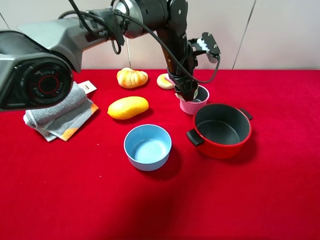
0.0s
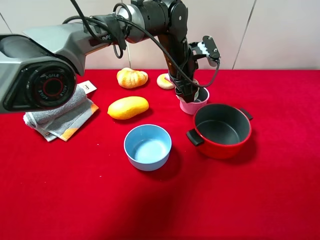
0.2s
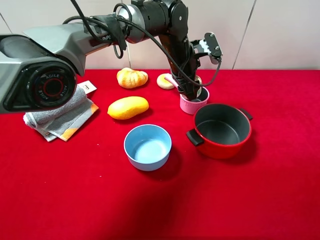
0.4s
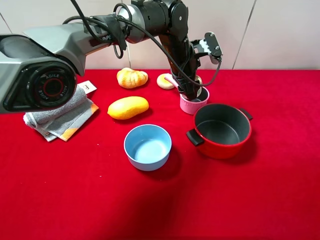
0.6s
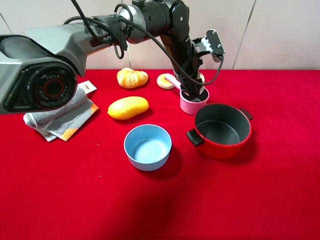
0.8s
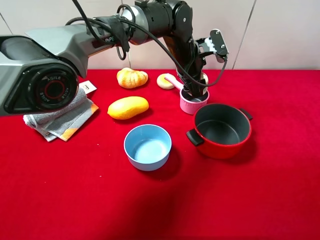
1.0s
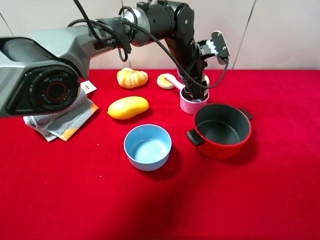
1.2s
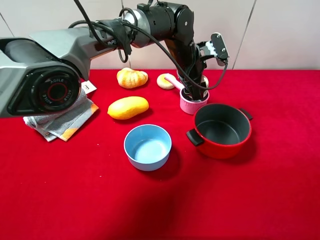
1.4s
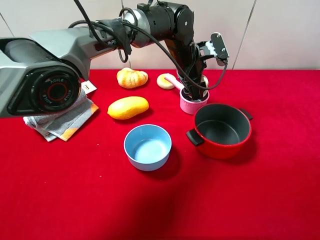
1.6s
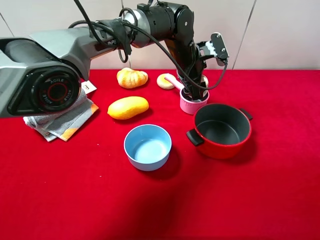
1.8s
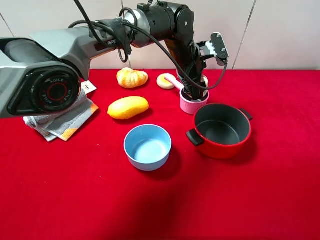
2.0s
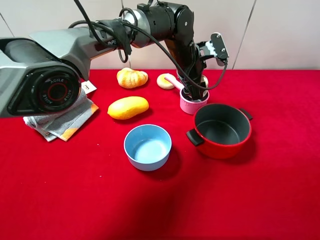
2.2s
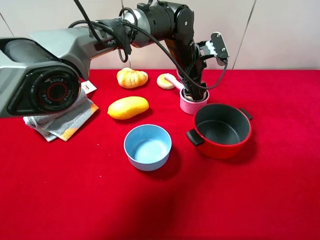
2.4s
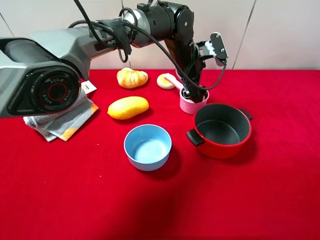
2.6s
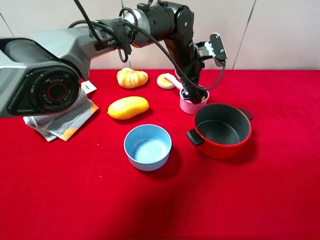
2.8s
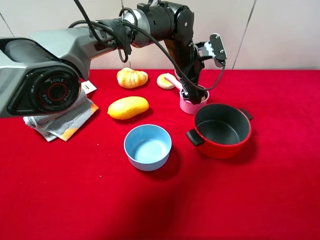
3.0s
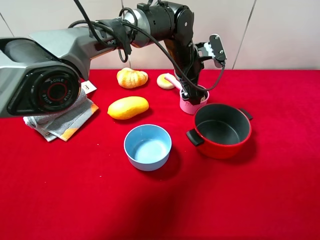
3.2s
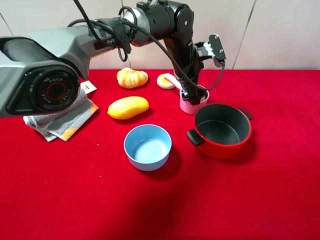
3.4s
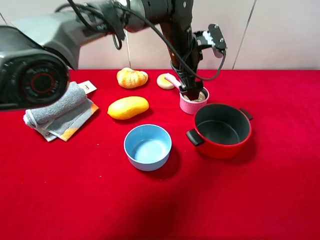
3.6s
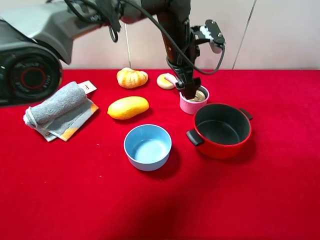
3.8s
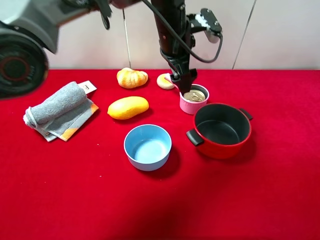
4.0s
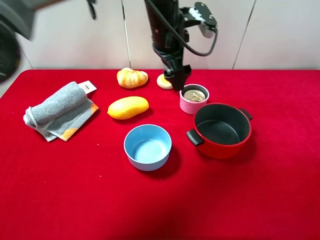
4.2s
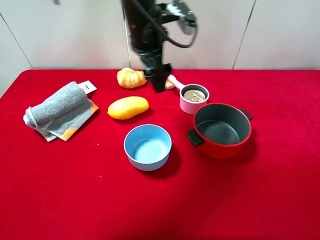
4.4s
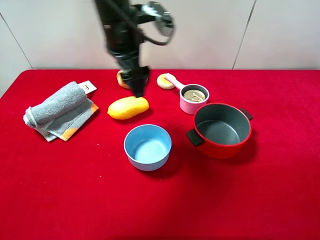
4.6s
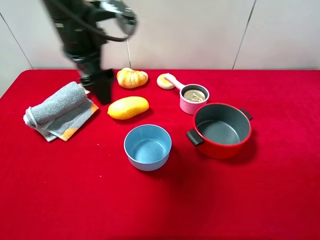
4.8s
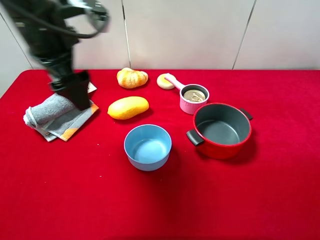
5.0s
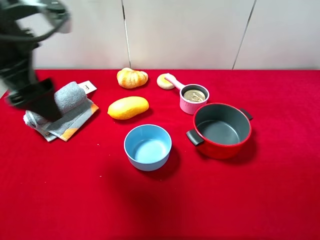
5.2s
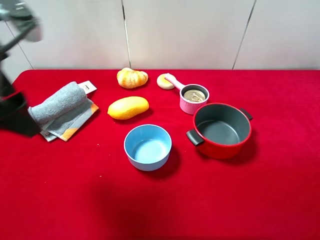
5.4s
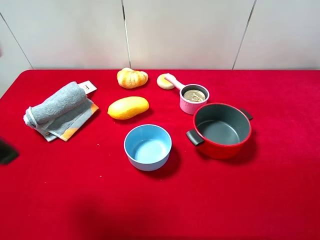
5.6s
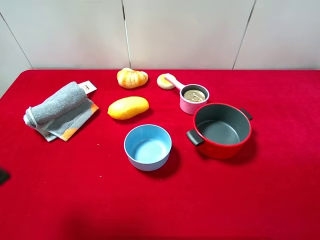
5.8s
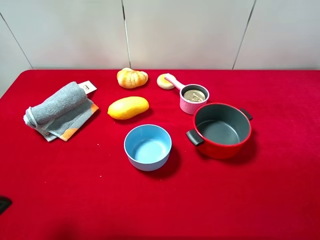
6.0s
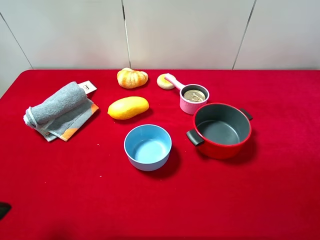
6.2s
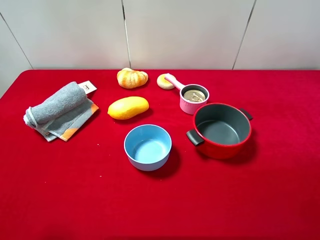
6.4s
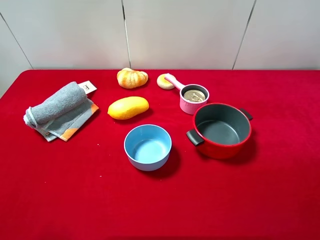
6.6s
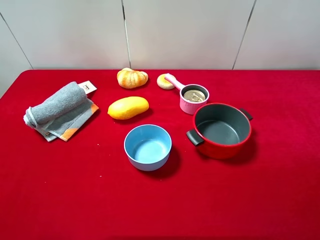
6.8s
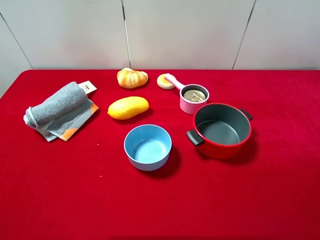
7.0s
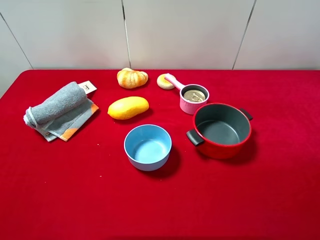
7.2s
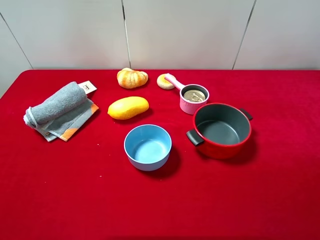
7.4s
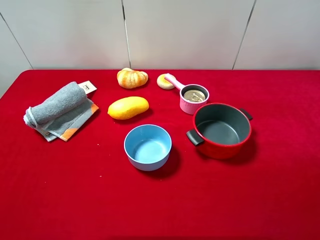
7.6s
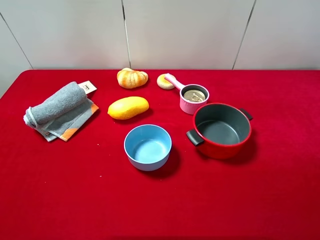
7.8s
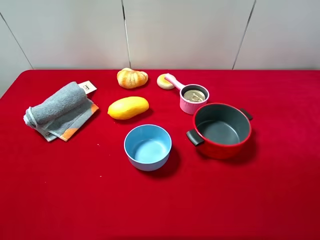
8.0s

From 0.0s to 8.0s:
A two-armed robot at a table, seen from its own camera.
Task of the whole recording: pick up an item with a gripper and place it in a random container on the desktop.
From 0.0s to 1.6s: The grippers make only small movements.
From 1.6s to 3.2s: The left gripper opens.
From 3.2s to 4.8s: The left gripper travels to the left, upward and backward by approximately 25 cm.
From 4.8s to 6.4s: The left gripper moves backward and to the left, approximately 30 cm.

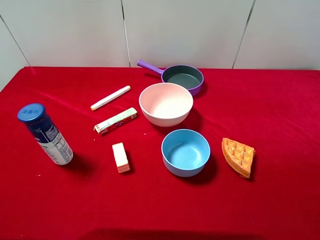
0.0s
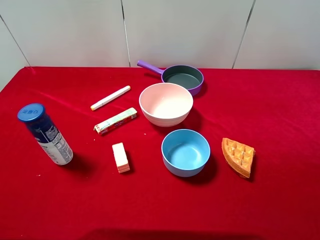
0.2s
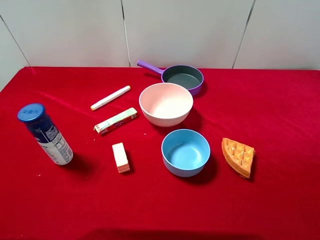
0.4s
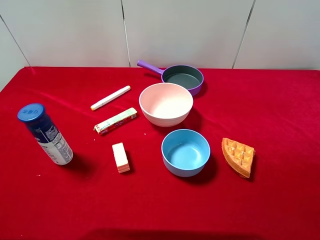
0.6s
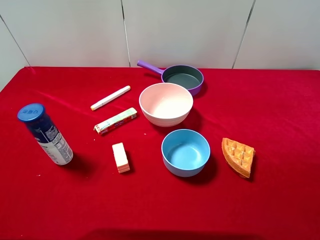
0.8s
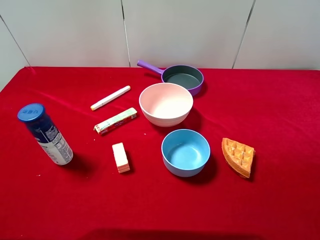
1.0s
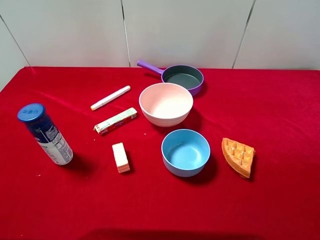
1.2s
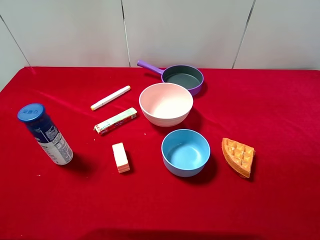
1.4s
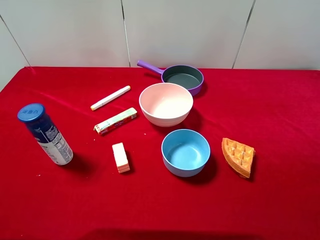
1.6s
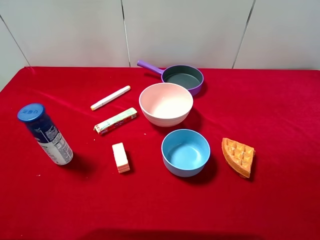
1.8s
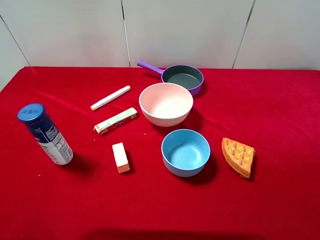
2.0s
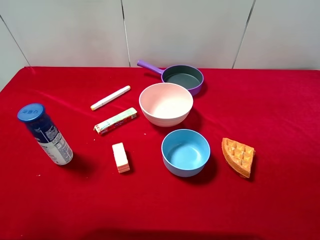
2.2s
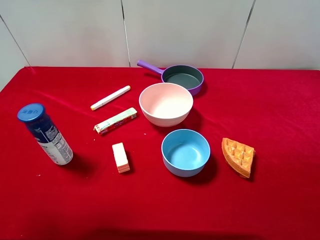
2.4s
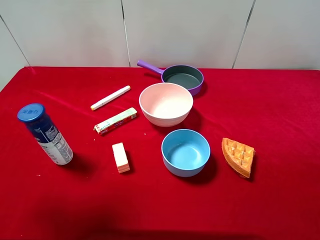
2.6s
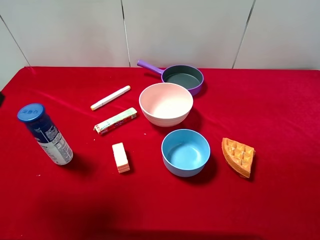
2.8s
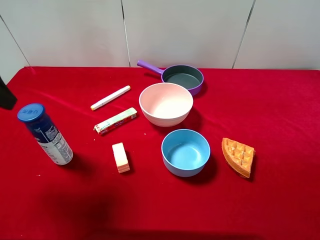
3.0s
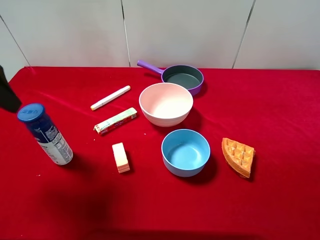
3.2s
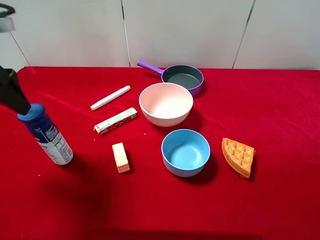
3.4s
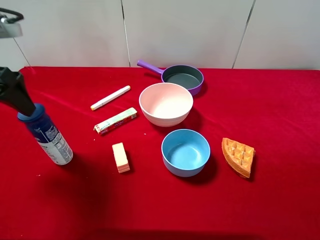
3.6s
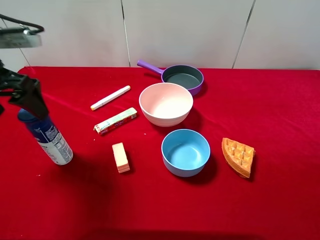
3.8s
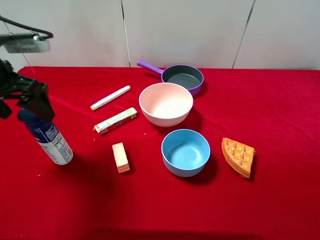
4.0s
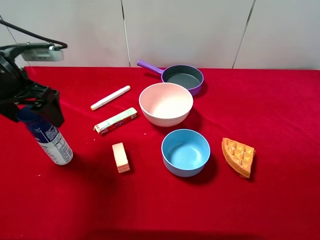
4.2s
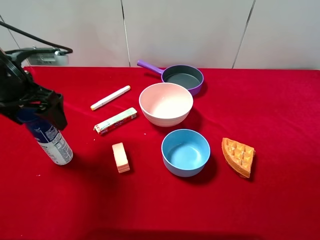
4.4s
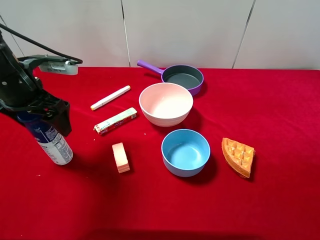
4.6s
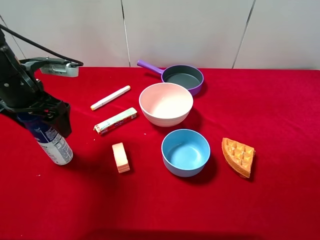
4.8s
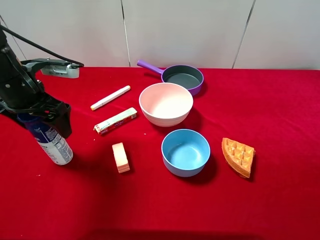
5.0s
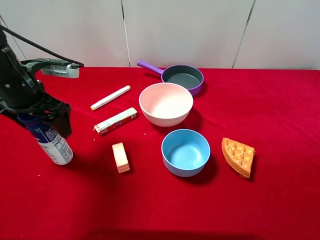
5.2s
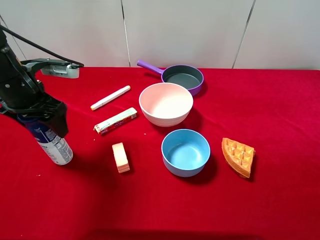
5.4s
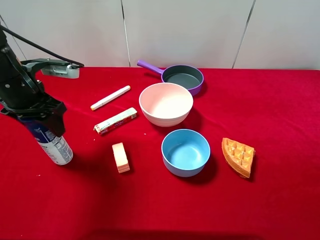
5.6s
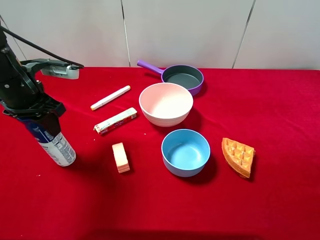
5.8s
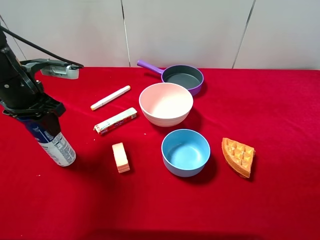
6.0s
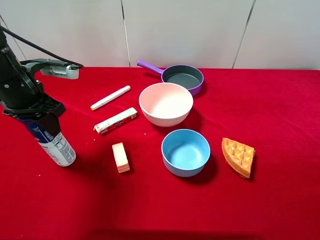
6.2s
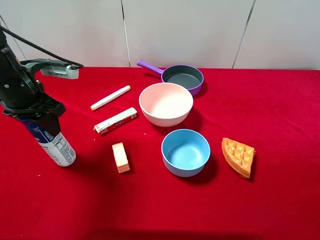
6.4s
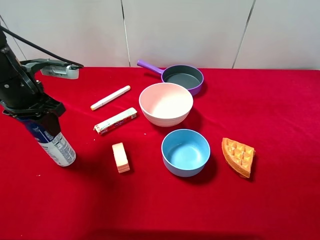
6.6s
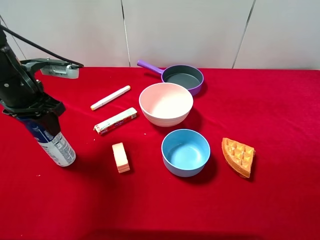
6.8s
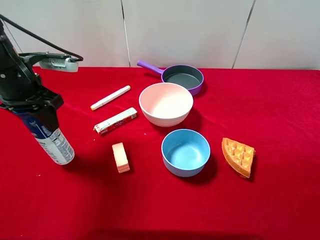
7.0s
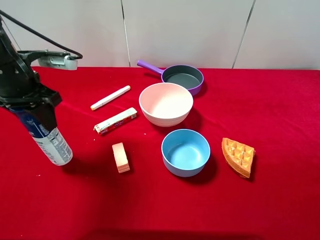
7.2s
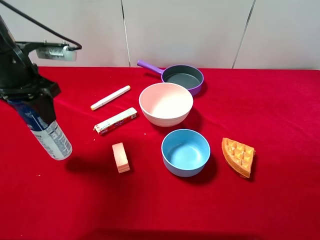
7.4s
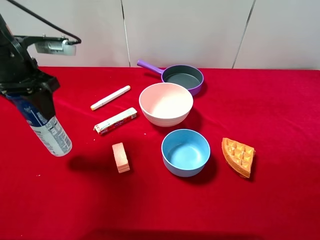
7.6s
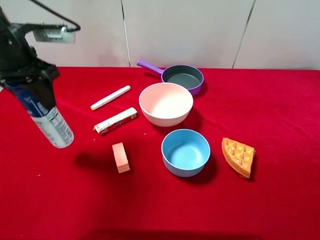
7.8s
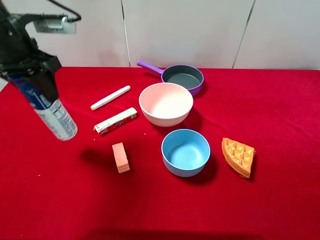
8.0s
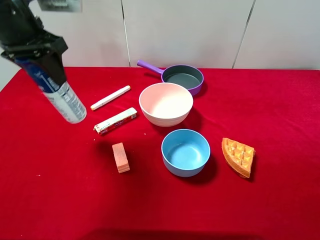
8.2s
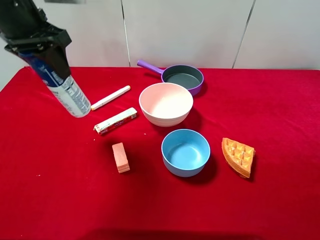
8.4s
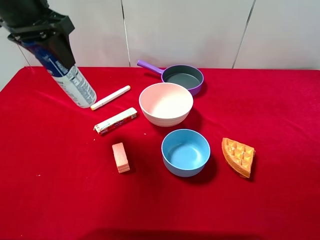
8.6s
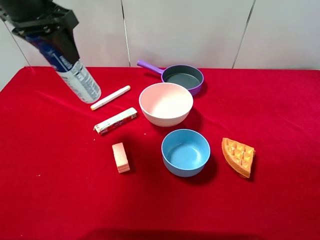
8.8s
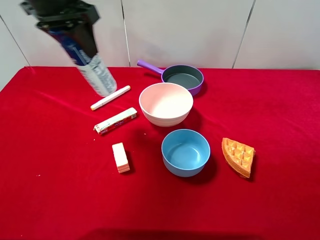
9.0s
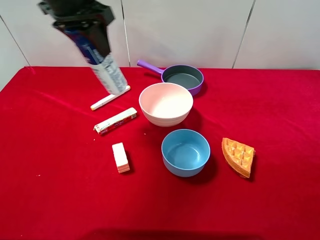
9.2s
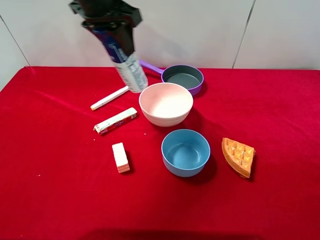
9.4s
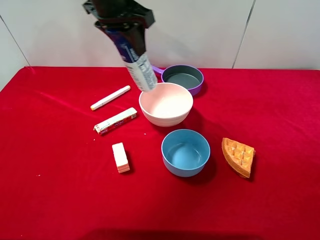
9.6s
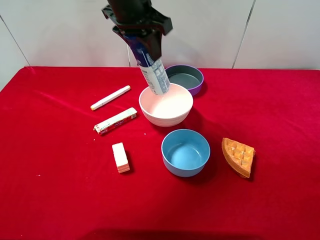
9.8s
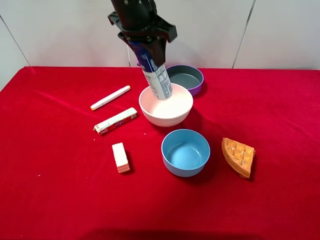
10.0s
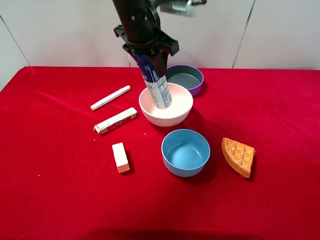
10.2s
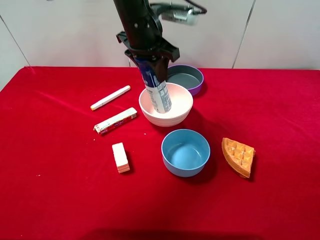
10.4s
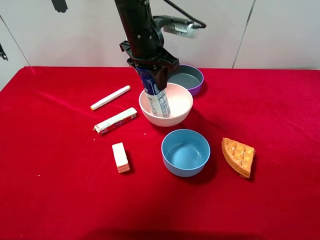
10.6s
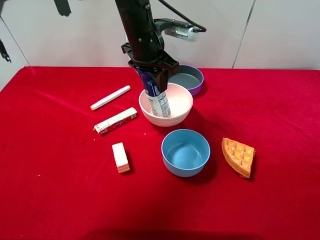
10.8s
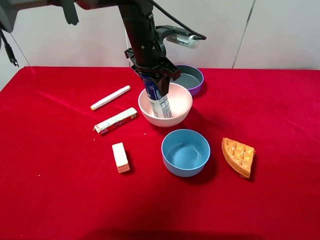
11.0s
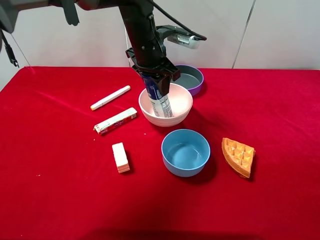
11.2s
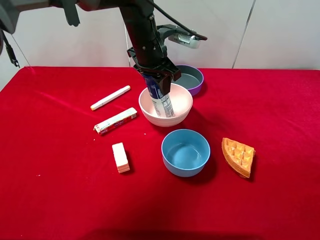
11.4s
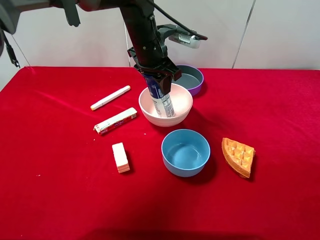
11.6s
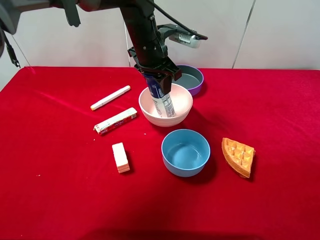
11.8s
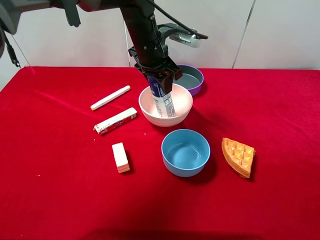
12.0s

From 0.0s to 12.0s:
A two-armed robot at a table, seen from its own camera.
Task of the whole recording: pick up an item with a gripper and place it in a random container on the desktop.
From 1.6s to 3.0s: The left gripper heads forward, covering about 15 cm.
From 3.0s to 4.4s: The left gripper is displaced downward and forward by some 10 cm.
From 4.4s to 6.0s: The left gripper closes.
From 6.0s to 7.6s: The left gripper ends up roughly 5 cm from where it was.
From 7.6s to 9.0s: The left gripper shifts some 10 cm upward and to the right.
From 9.0s to 10.4s: The left gripper goes approximately 15 cm to the right and downward.
From 10.4s to 12.0s: The left gripper moves approximately 5 cm.

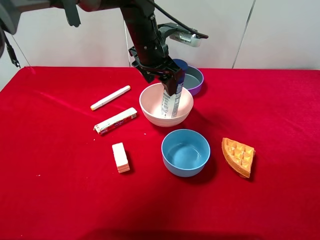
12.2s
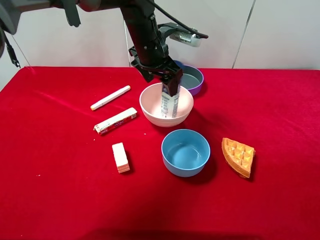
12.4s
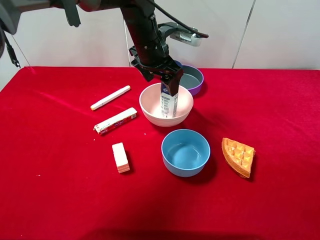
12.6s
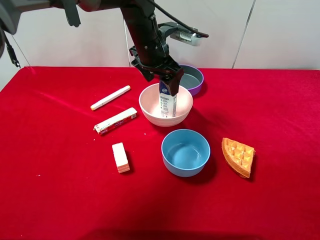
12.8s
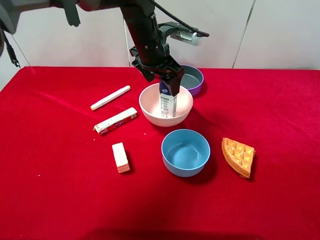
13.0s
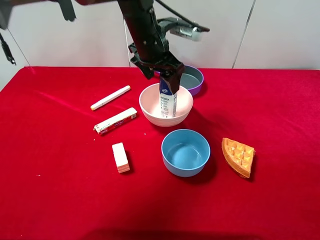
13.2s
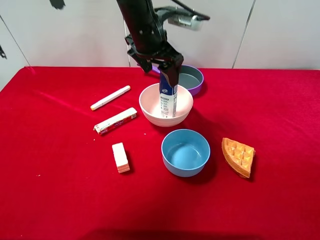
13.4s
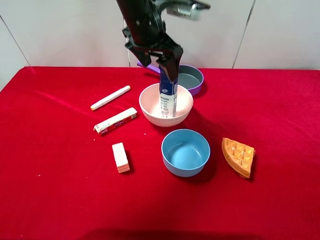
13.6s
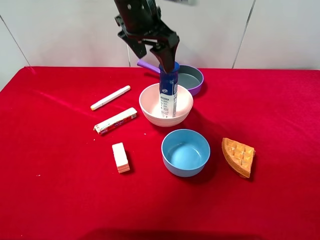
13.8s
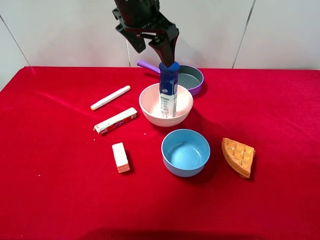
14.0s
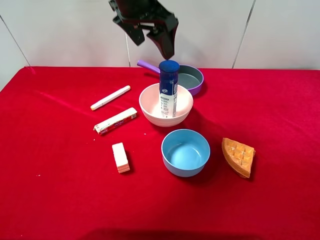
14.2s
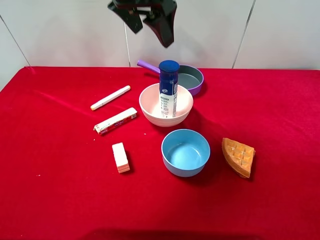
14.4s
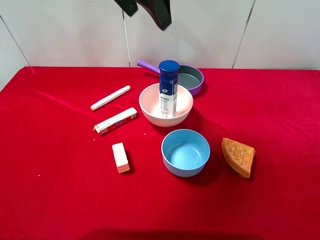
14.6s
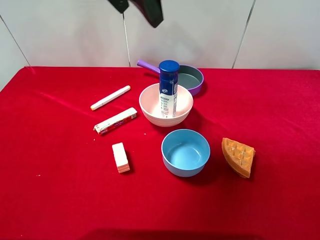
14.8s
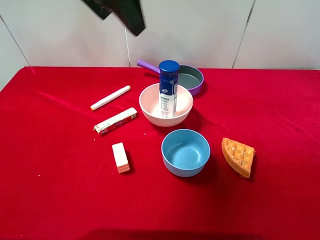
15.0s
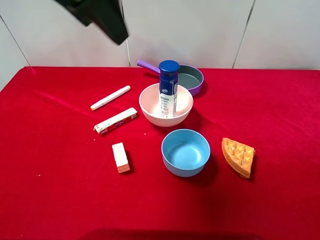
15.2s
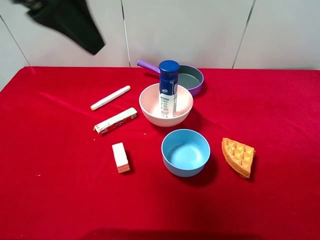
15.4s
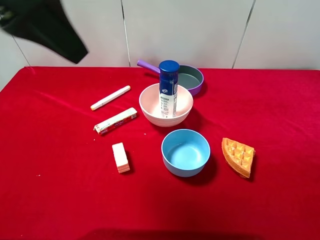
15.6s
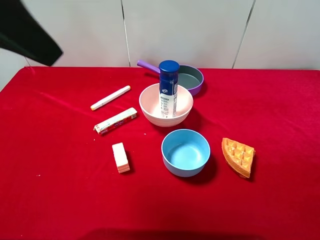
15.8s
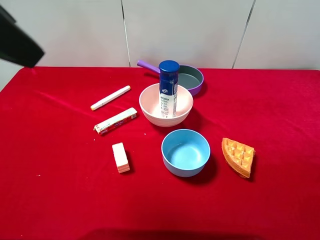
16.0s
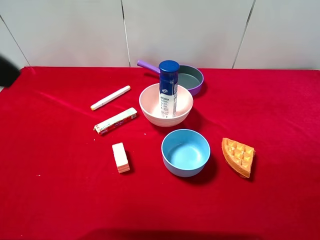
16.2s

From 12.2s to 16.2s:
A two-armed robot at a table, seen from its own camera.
Task of the whole recording: pick up an item with a gripper and place it in a random container on the desktop.
From 12.2s to 13.6s: The left gripper is displaced upward by some 5 cm.
From 13.6s to 14.8s: The left gripper shifts about 15 cm upward, backward and to the left.
From 14.8s to 16.2s: The left gripper goes about 20 cm backward and to the left.
